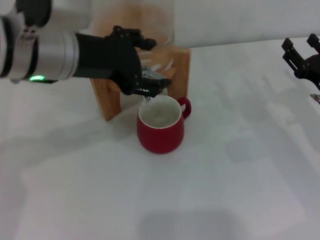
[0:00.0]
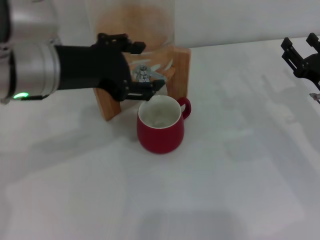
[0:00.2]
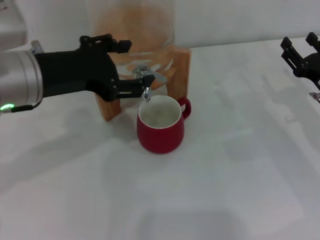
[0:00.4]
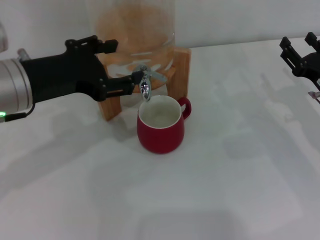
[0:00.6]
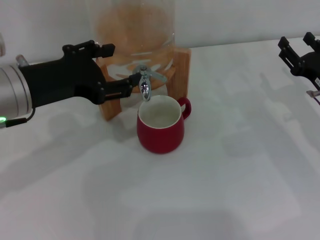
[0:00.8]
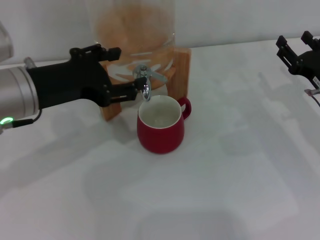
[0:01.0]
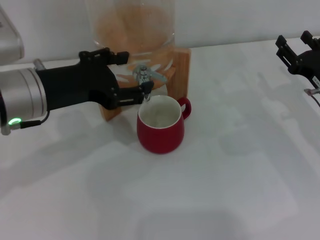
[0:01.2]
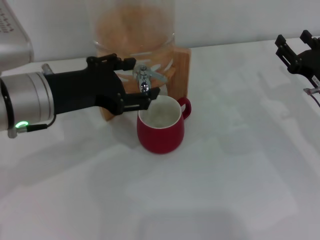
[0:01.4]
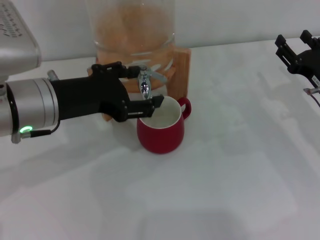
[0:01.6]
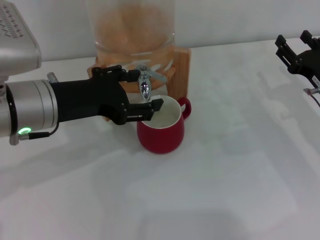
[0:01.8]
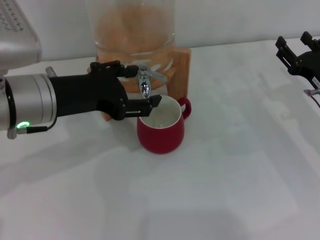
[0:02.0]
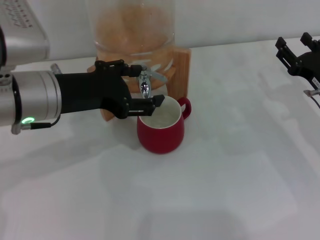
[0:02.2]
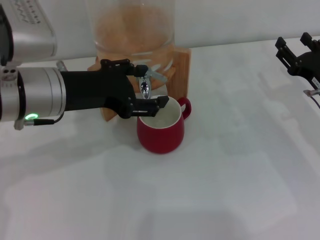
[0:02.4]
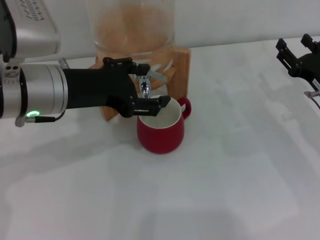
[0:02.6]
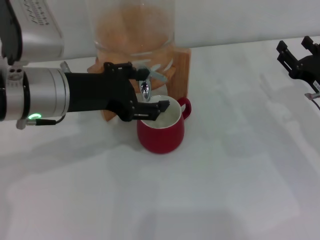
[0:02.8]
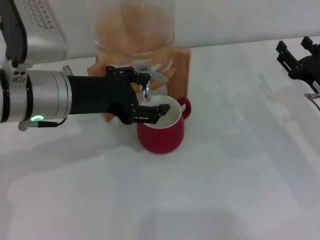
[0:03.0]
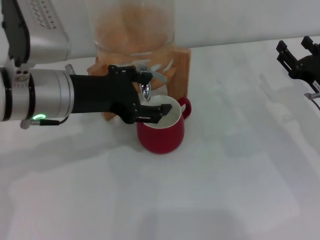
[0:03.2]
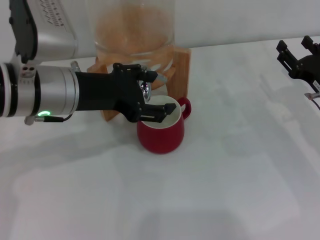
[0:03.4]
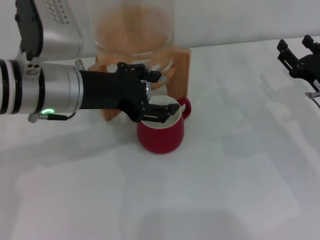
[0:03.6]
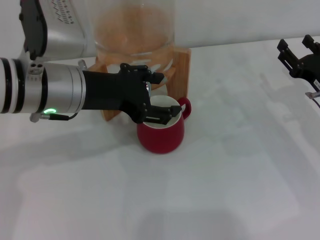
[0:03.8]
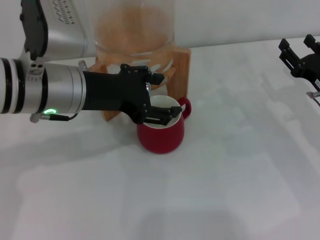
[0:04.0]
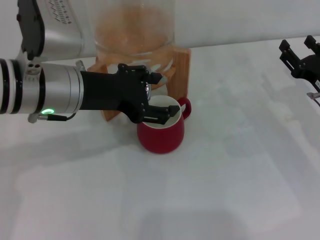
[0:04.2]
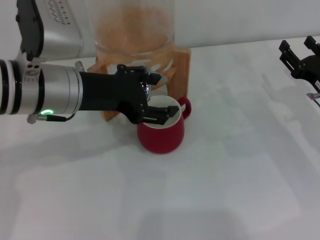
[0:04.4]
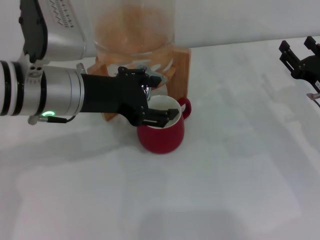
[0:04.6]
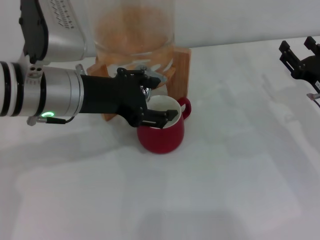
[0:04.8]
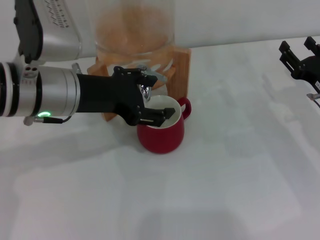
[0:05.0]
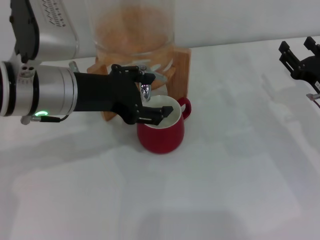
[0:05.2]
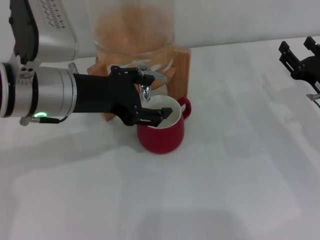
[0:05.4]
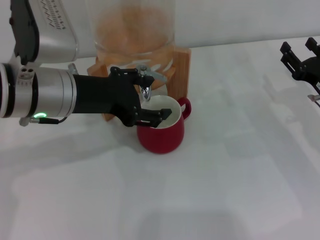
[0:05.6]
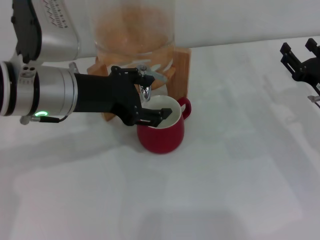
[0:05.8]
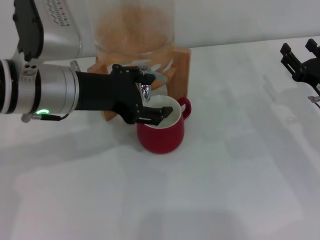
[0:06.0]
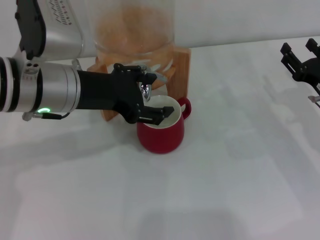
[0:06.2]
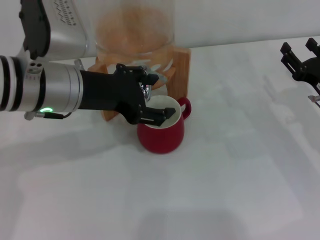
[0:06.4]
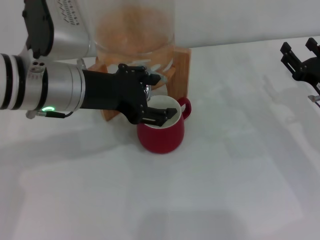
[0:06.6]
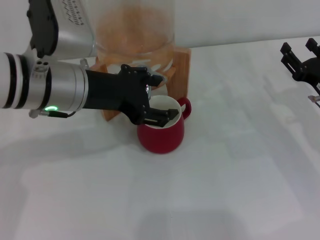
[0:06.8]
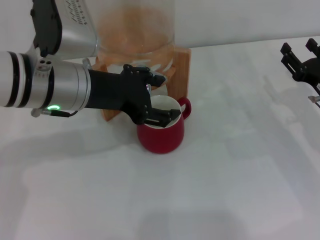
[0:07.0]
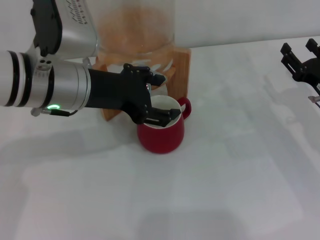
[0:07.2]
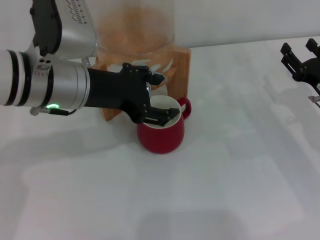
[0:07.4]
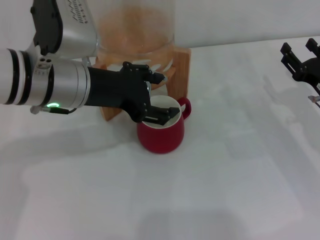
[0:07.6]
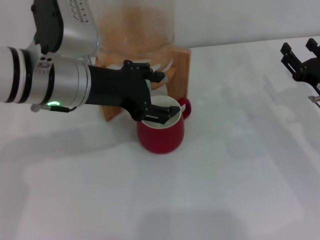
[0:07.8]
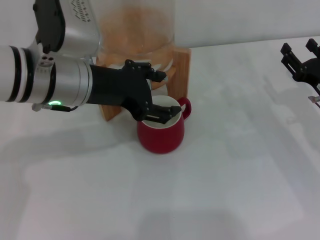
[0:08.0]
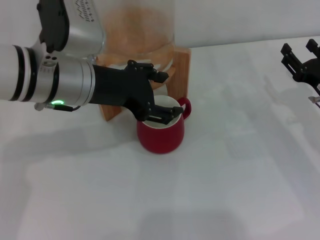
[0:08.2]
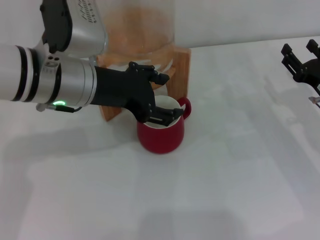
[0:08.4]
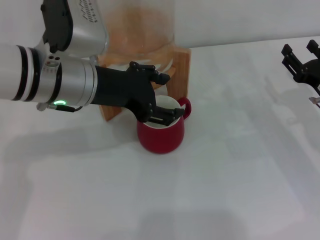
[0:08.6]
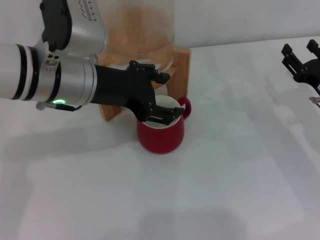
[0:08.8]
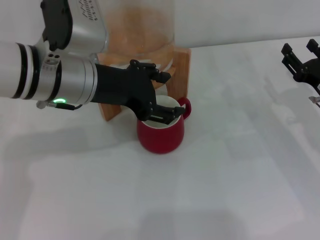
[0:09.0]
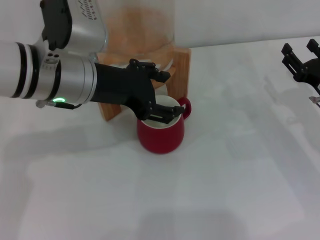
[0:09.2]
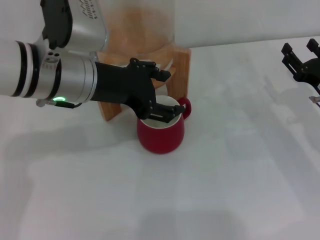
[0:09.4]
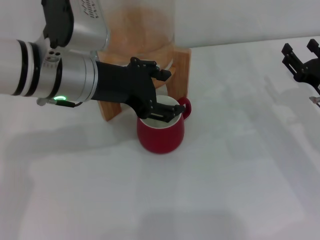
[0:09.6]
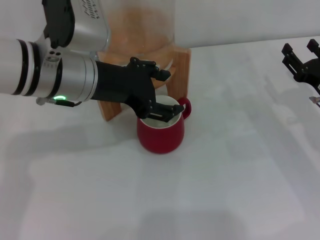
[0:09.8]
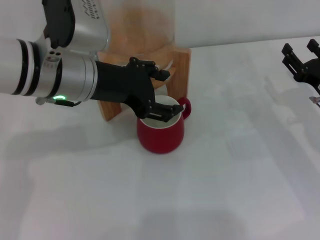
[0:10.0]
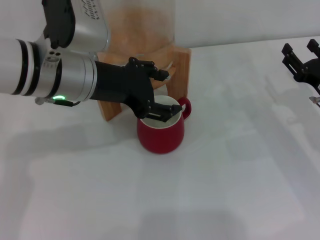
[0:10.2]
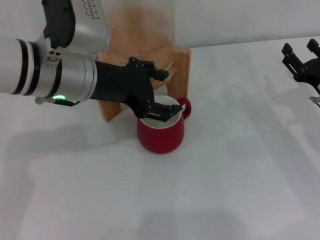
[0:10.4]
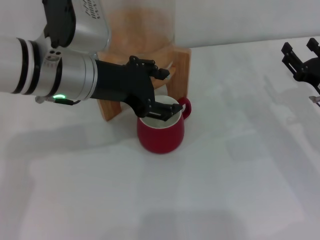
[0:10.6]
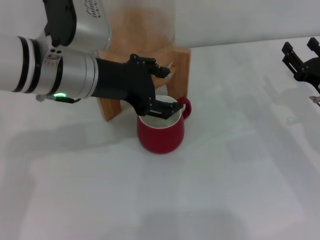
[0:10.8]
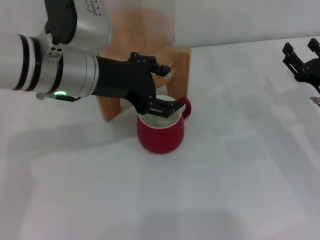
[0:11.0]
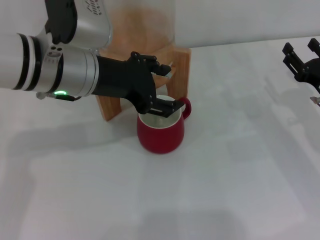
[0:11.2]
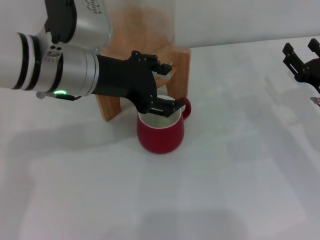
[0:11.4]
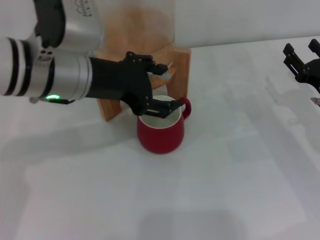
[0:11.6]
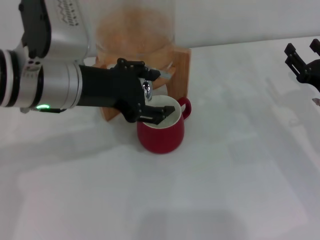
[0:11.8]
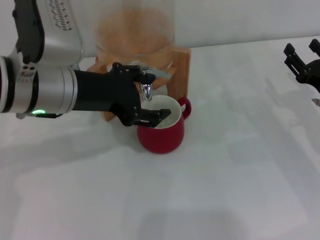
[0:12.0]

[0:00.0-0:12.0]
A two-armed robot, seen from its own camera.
Task of the whole recording: the right gripper pick up the red cup and place it horizontally under the faucet, the left gripper turn on the faucet to fill the cup, and then turn off the faucet.
0:00.0 to 0:01.6: The left gripper shifts roughly 5 cm downward.
0:01.6 to 0:04.4: The grippers make only small movements.
0:04.4 to 0:06.0: Both grippers stay about where they are.
0:06.0 to 0:07.6: The grippers make only small movements.
0:07.6 to 0:10.4: Neither gripper changes place.
0:10.4 to 0:12.0: The grippers move only a little.

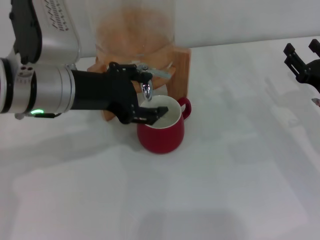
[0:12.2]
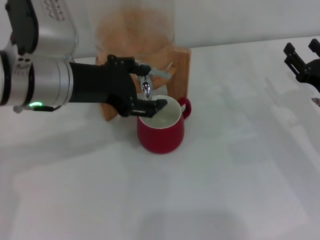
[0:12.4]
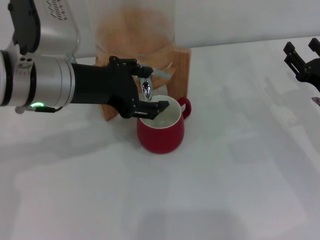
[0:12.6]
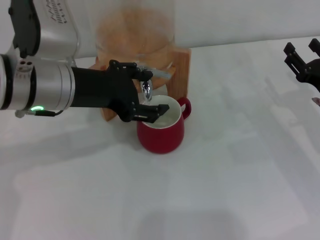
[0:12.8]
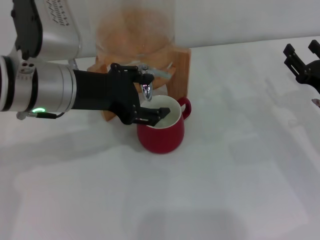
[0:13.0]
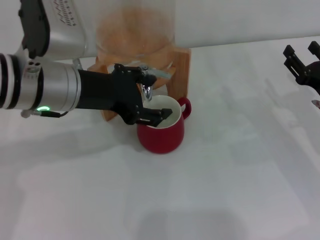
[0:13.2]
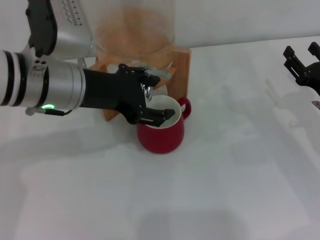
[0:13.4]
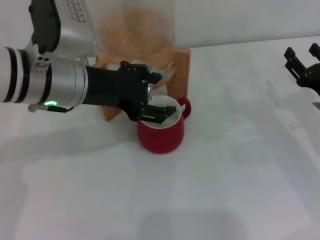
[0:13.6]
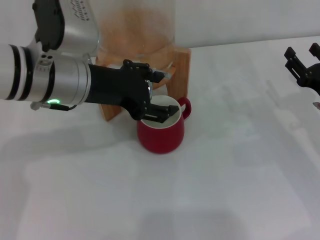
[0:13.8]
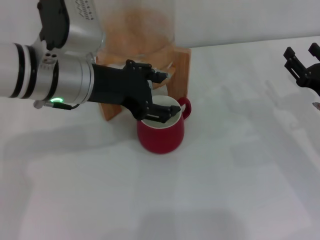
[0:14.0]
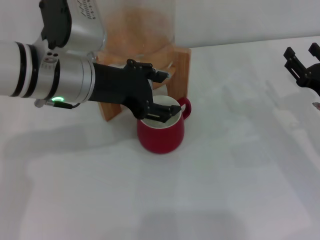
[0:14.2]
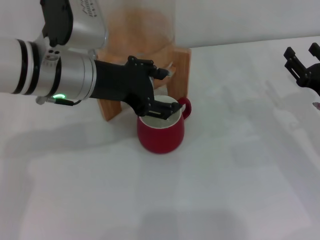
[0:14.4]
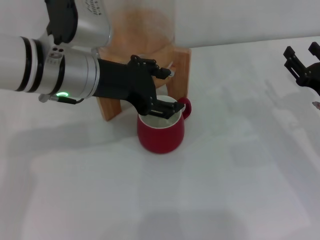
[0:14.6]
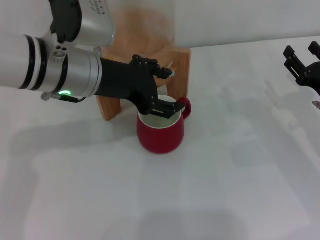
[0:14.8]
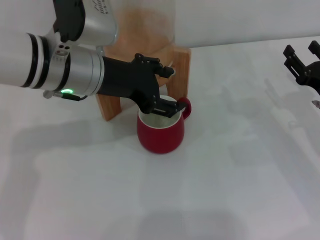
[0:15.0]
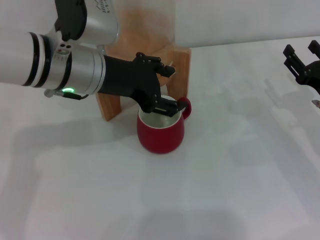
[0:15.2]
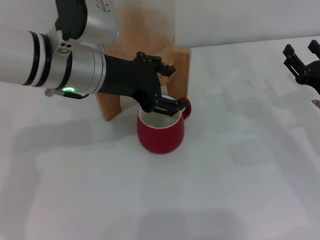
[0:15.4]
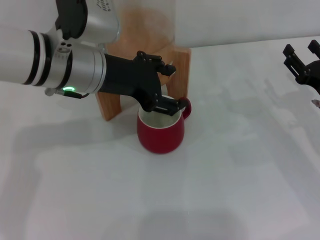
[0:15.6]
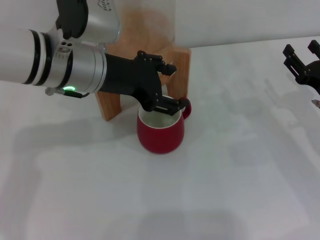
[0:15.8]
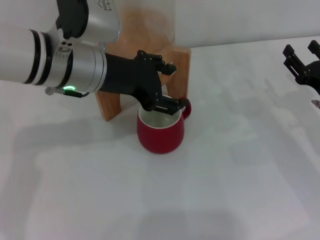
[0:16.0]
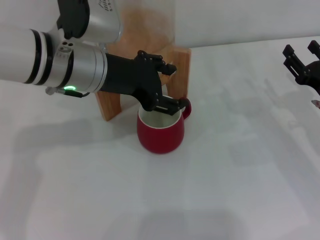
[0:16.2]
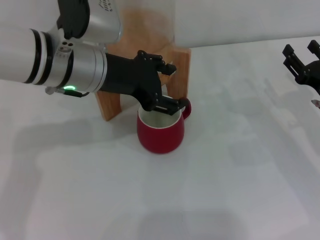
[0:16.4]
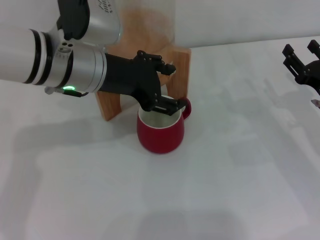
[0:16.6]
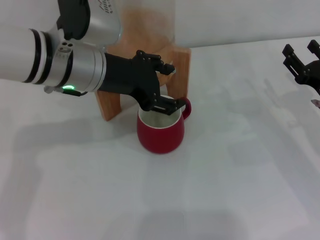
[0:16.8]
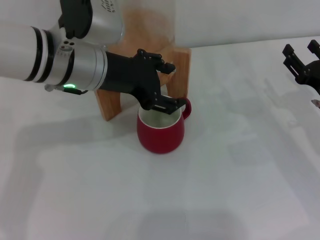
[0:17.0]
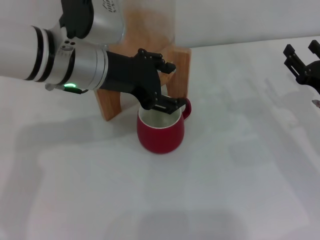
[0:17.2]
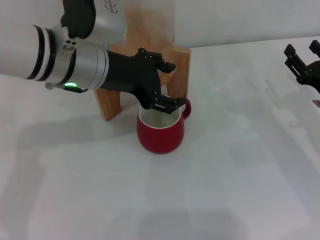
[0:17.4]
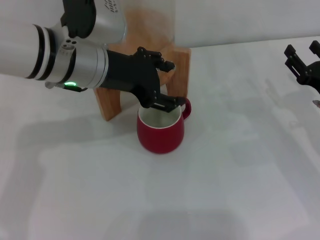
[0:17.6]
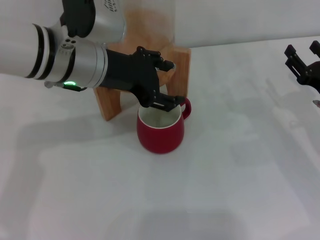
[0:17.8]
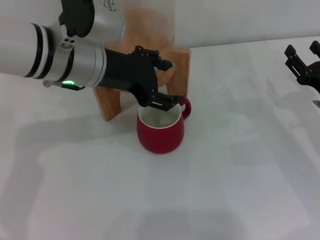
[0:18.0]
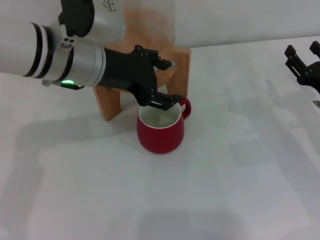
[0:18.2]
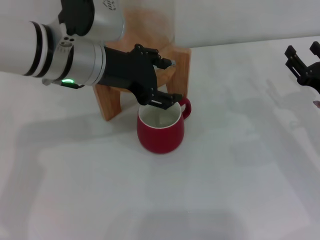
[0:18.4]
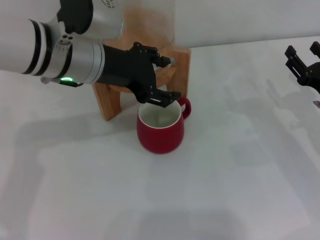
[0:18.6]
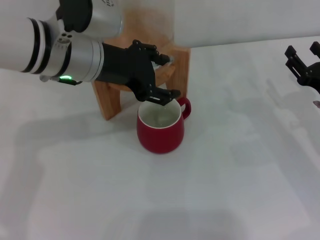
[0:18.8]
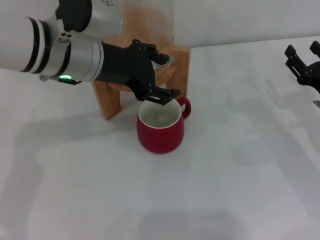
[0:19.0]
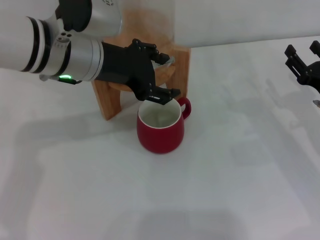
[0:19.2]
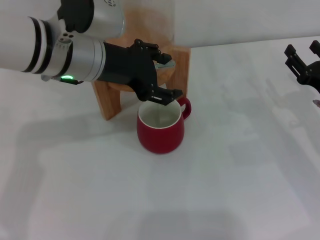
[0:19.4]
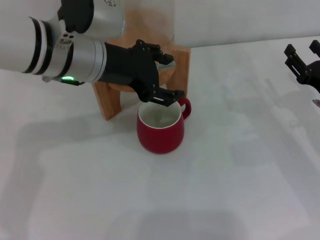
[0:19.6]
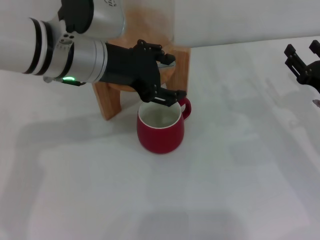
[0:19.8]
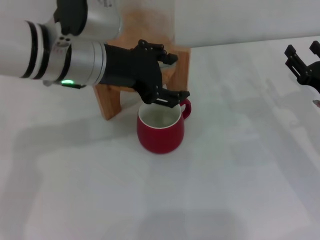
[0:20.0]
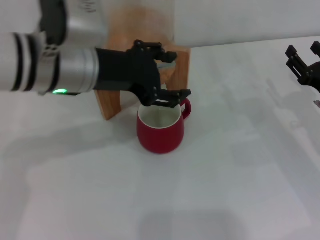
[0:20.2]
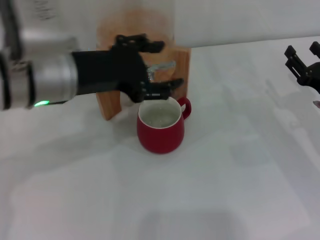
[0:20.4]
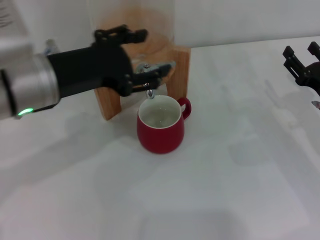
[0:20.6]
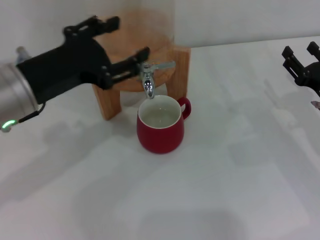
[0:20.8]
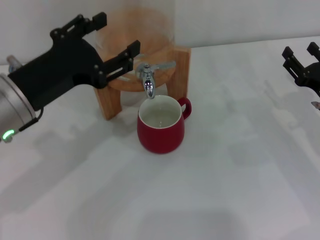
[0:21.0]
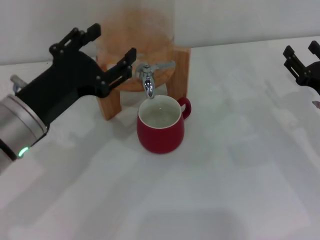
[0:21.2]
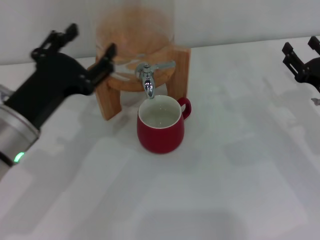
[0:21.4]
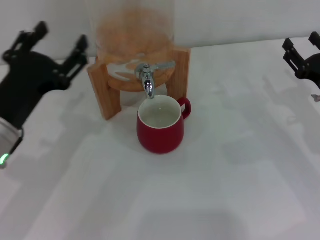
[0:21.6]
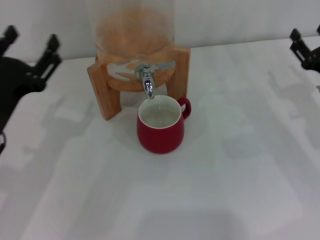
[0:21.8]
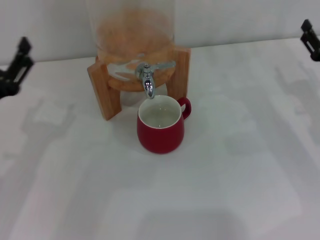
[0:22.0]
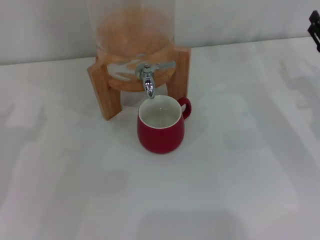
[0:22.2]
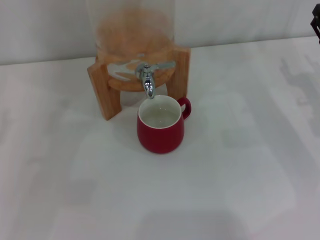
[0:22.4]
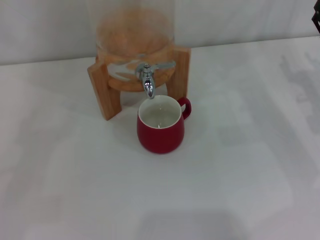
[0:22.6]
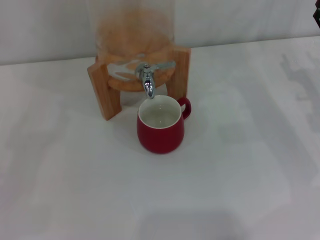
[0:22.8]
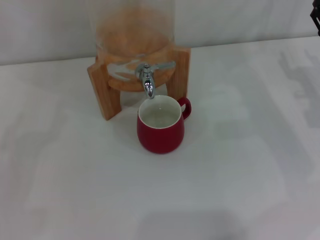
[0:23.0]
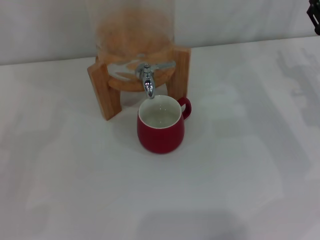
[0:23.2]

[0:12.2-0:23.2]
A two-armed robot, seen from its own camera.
Task of the whole recording: the right gripper pick up the red cup and place it horizontally under the faucet, the left gripper turn on the faucet to fill the cup, and then turn off the faucet.
Step, 0:12.2 to 0:20.2: Close the dispenser valve with the left gripper.
0:12.2 to 0:15.4: The grippers move only a little.
0:15.4 to 0:17.0: Both grippers stay put.
0:17.0 to 0:20.0: Neither gripper changes place.
0:20.0 to 0:21.6: The left gripper is displaced to the left, backward and downward by approximately 15 cm.
0:21.6 to 0:23.2: The left gripper shifts approximately 20 cm to the left. The right gripper changes place by roughly 5 cm.
